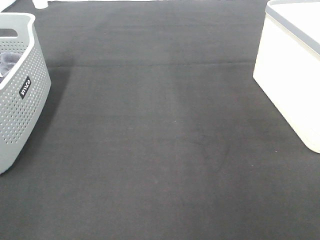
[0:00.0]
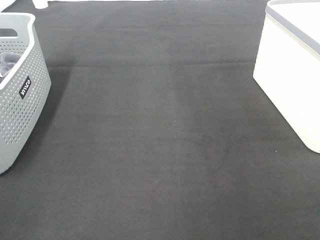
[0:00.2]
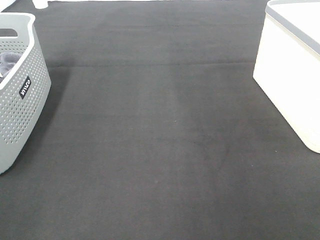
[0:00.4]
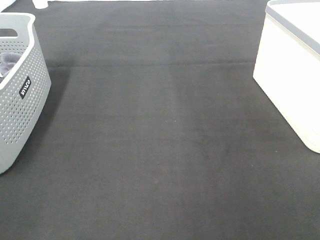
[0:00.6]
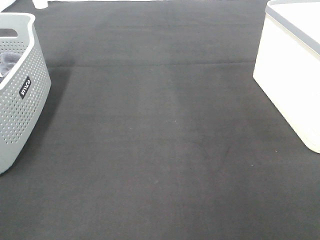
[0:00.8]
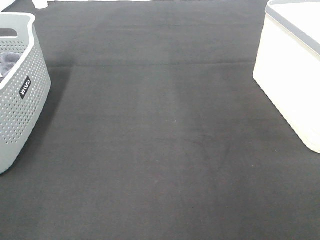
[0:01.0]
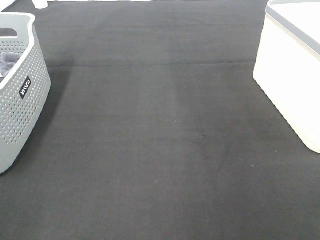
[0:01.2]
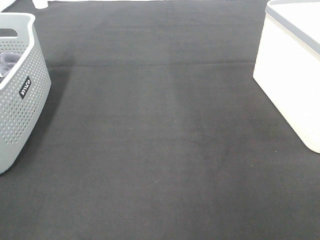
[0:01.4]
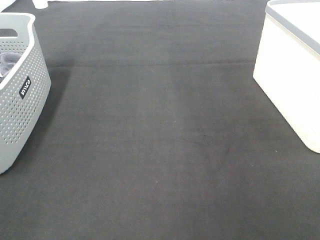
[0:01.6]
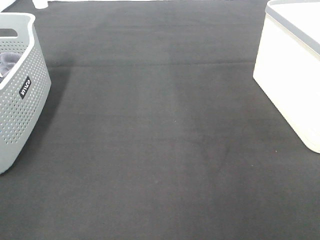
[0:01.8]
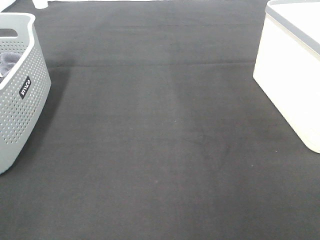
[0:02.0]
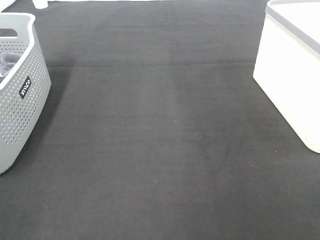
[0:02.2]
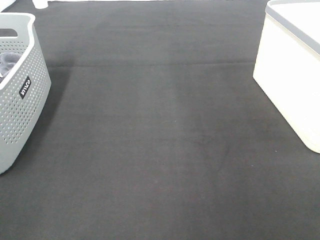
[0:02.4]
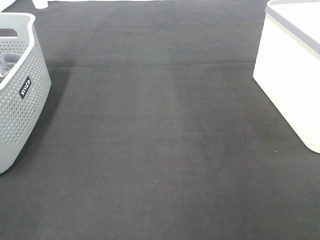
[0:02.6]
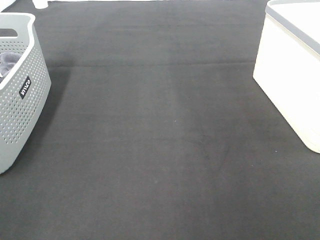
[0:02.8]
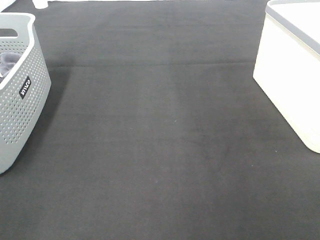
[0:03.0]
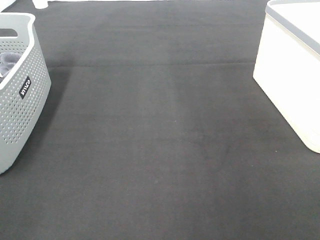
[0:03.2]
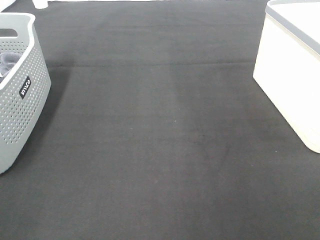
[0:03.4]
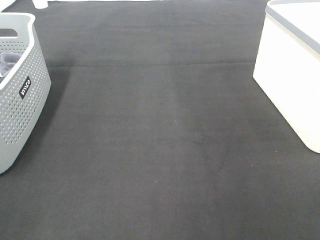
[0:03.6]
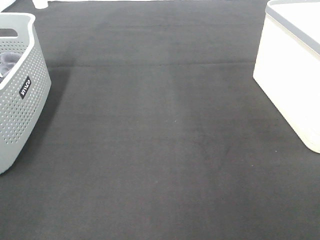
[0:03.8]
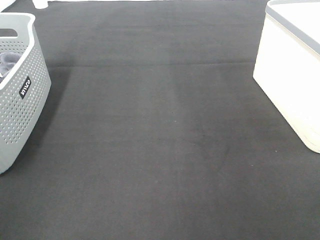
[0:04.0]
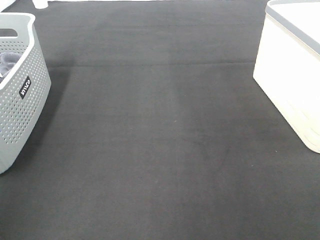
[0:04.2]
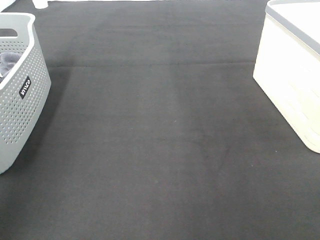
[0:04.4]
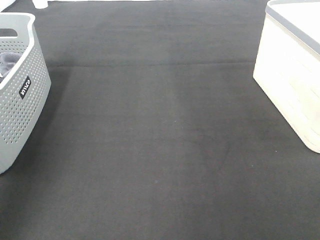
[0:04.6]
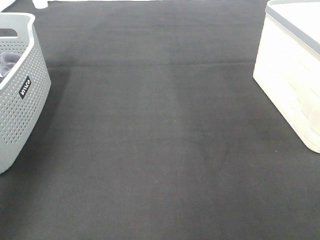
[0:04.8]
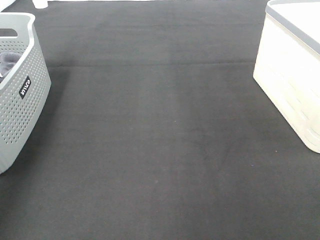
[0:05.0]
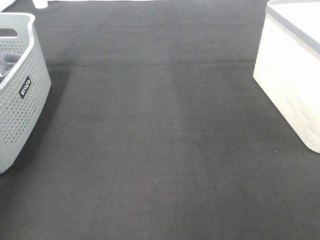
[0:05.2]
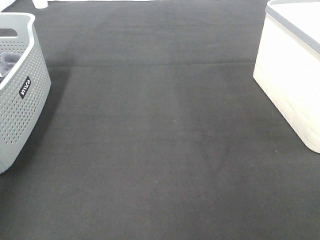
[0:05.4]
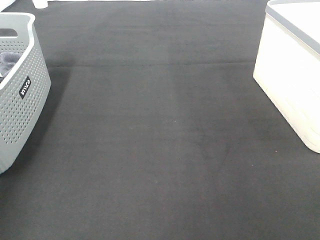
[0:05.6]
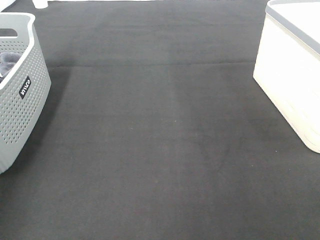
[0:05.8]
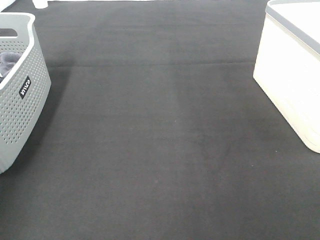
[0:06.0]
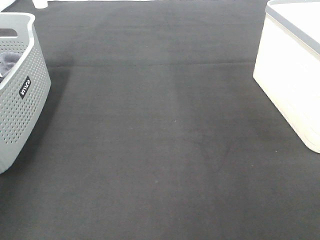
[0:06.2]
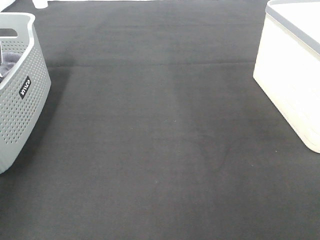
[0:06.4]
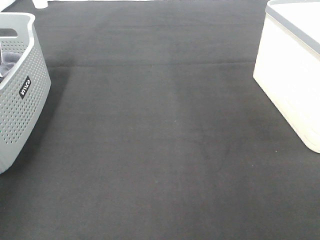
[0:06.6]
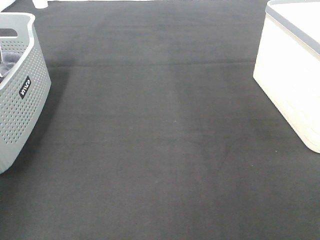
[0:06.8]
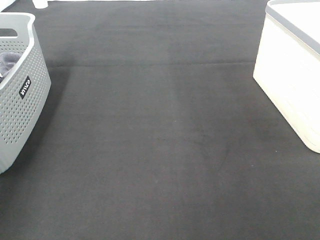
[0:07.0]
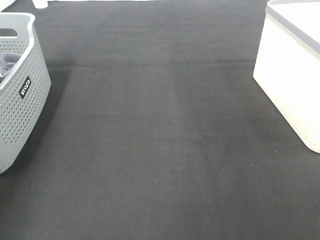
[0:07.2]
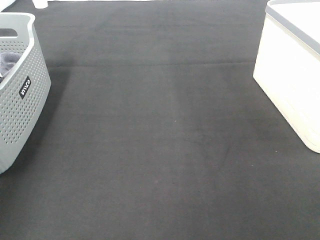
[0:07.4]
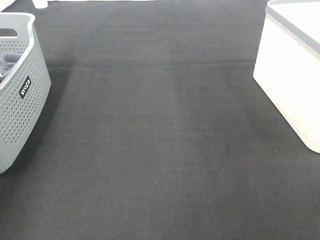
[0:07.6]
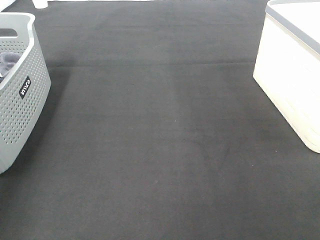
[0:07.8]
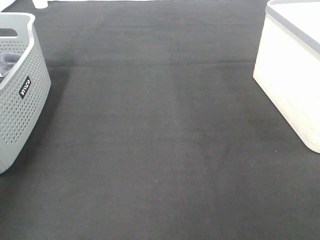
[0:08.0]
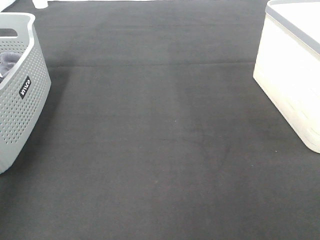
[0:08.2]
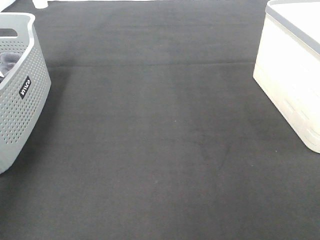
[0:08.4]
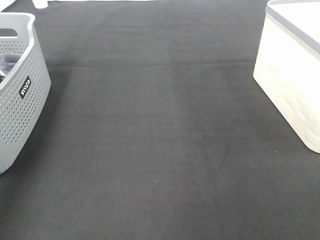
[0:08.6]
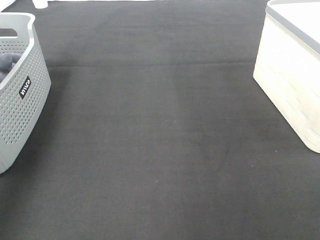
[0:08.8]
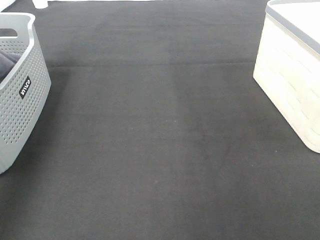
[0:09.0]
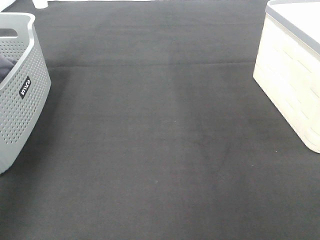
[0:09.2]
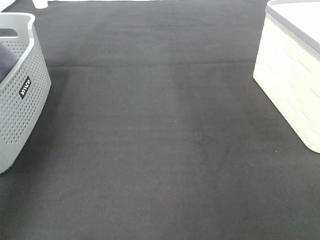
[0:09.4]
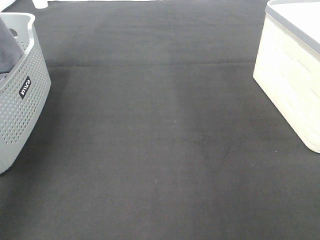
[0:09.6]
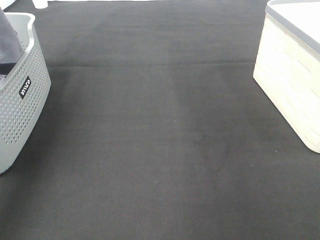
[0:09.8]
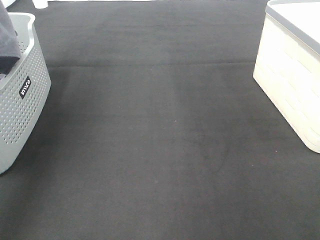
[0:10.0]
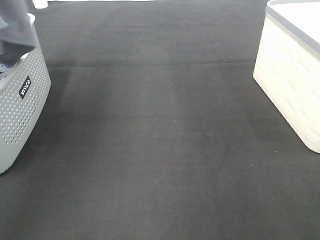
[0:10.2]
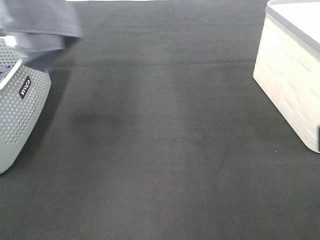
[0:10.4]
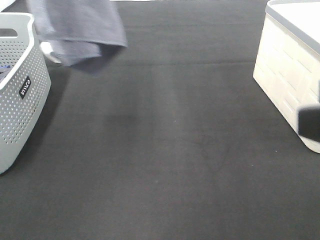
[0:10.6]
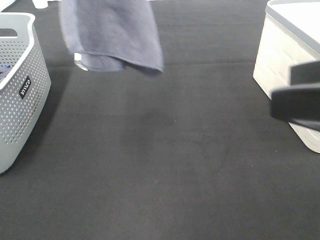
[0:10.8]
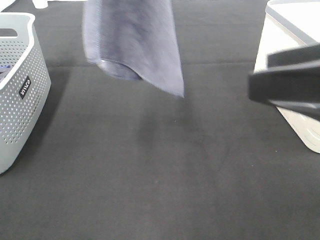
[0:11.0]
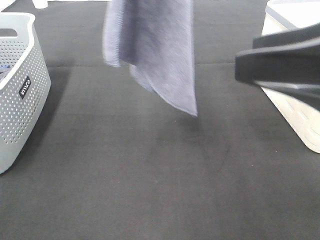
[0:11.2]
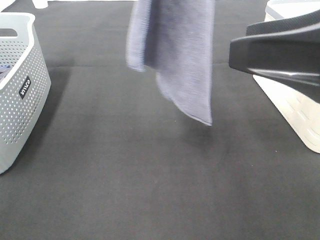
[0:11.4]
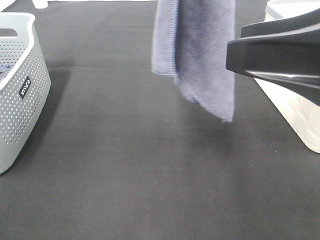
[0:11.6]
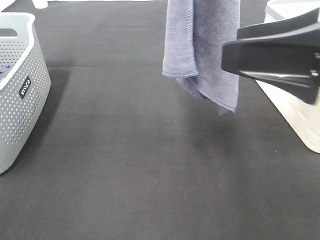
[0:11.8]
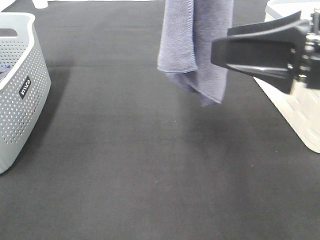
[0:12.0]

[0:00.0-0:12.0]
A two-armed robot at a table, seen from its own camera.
Task of the whole recording: Remove the towel and place it.
0:00.0 to 0:03.0: Neither gripper changes place.
0:03.0 to 0:04.4: The left gripper is displaced forward and upward by approximately 20 cm.
0:09.0 to 0:10.4: The left gripper heads upward and to the right, covering approximately 20 cm, while the right gripper shifts about 10 cm forward, upward and to the left.
0:10.4 to 0:12.0: The right gripper is displaced forward by about 10 cm; the left gripper travels to the right by roughly 20 cm.

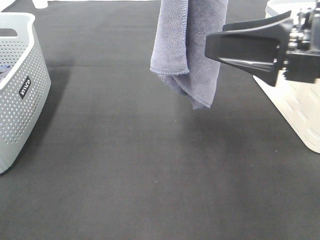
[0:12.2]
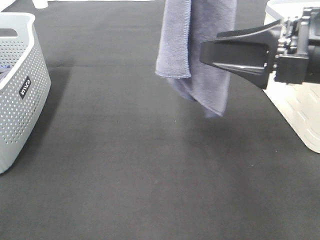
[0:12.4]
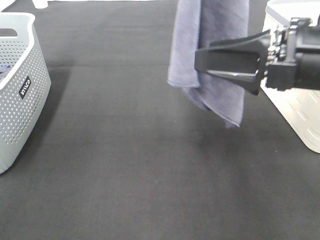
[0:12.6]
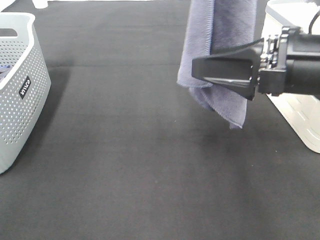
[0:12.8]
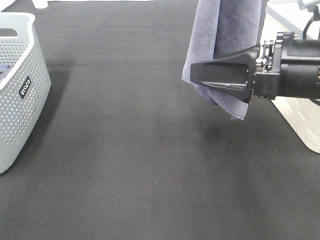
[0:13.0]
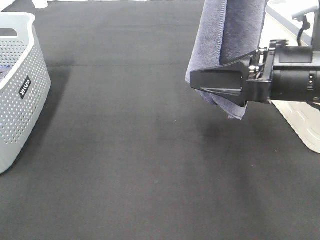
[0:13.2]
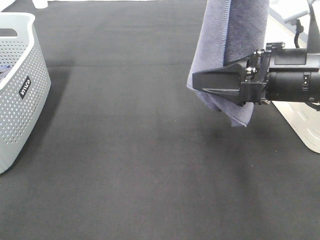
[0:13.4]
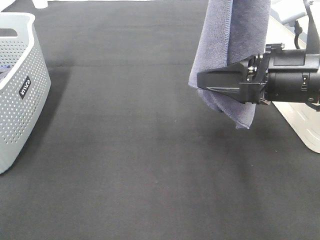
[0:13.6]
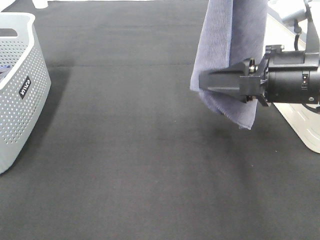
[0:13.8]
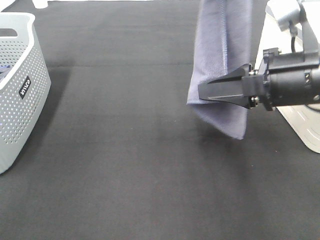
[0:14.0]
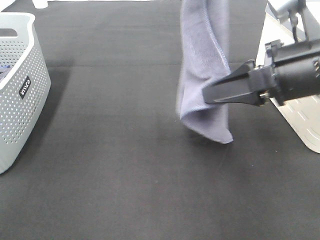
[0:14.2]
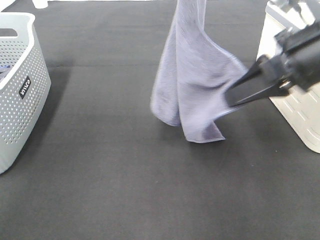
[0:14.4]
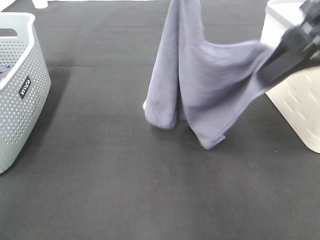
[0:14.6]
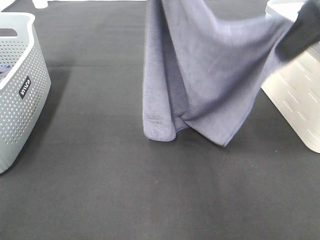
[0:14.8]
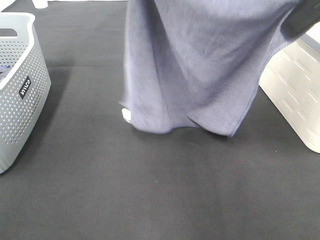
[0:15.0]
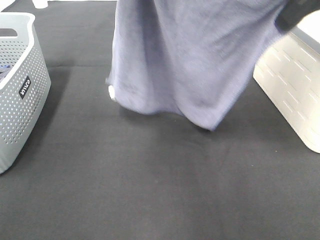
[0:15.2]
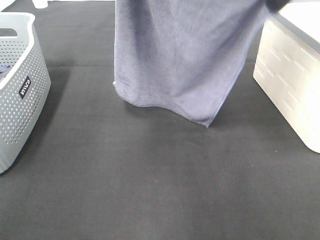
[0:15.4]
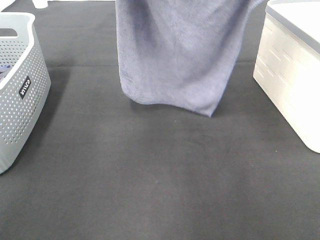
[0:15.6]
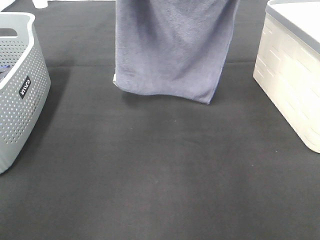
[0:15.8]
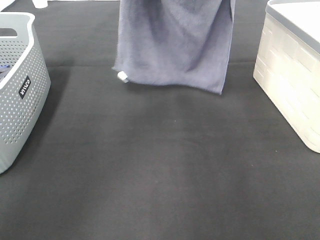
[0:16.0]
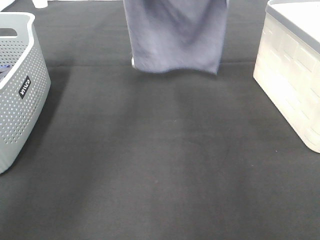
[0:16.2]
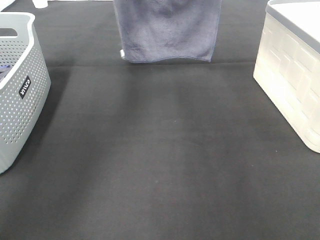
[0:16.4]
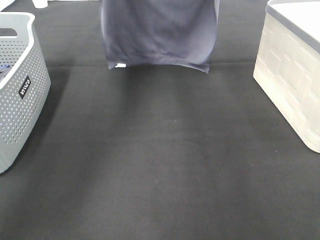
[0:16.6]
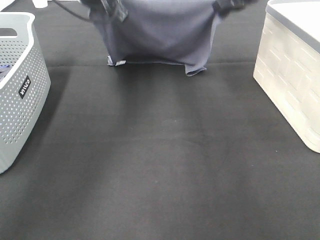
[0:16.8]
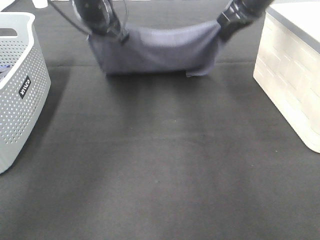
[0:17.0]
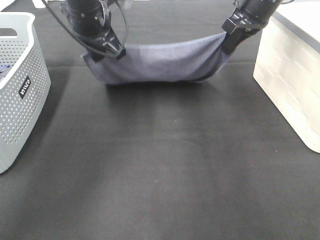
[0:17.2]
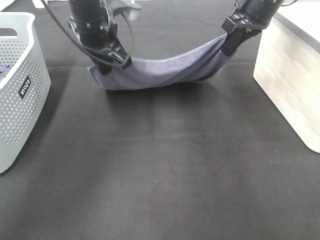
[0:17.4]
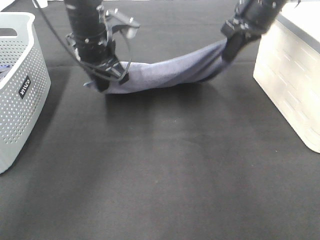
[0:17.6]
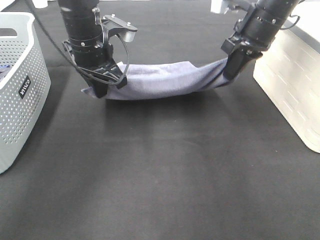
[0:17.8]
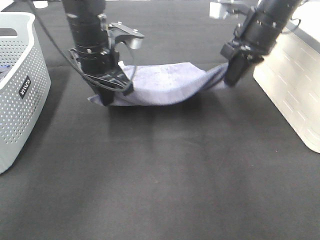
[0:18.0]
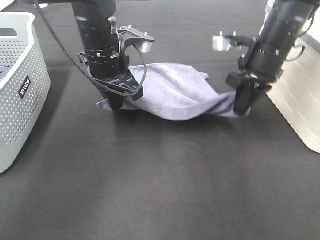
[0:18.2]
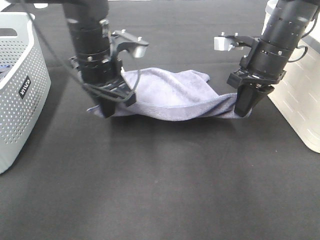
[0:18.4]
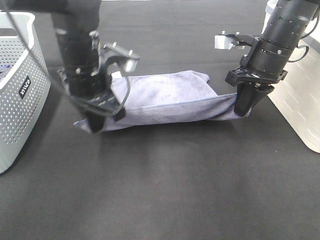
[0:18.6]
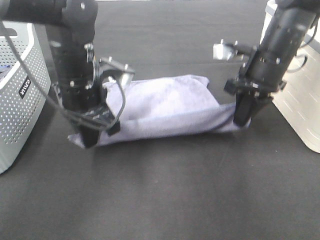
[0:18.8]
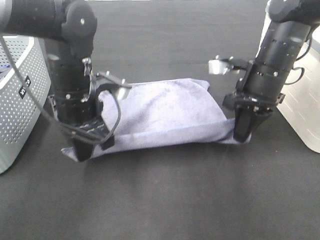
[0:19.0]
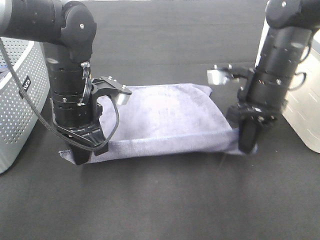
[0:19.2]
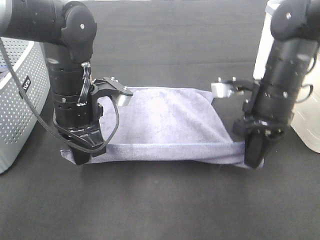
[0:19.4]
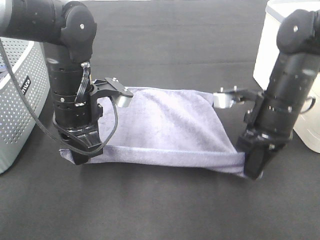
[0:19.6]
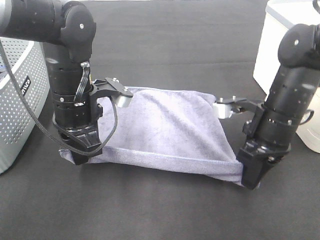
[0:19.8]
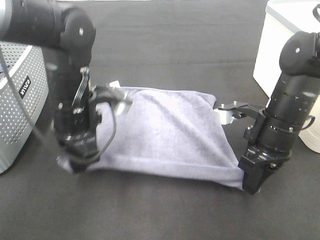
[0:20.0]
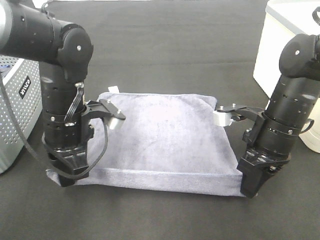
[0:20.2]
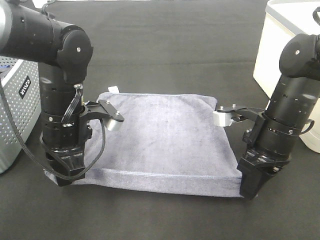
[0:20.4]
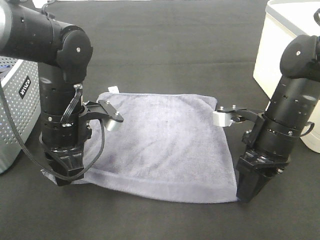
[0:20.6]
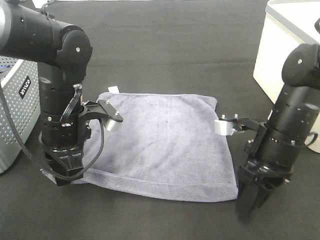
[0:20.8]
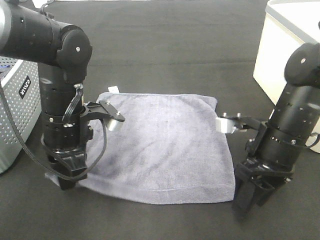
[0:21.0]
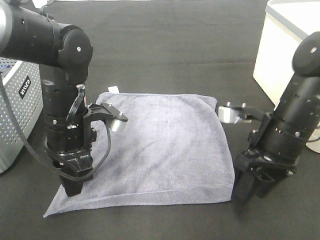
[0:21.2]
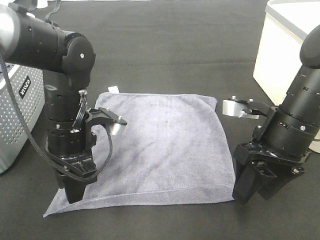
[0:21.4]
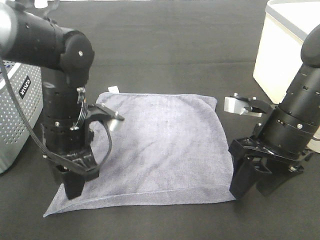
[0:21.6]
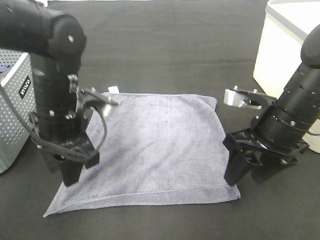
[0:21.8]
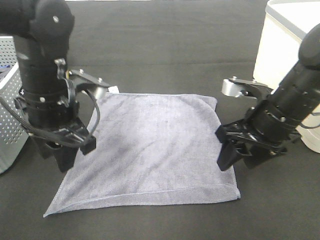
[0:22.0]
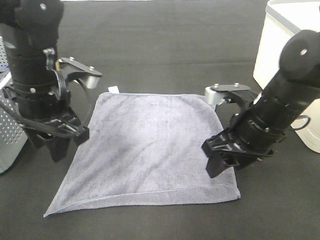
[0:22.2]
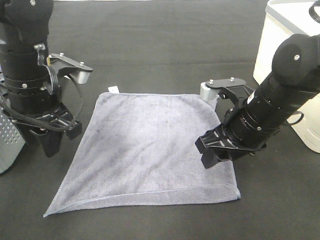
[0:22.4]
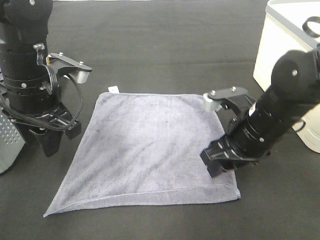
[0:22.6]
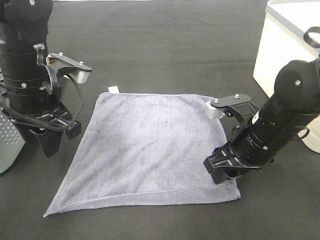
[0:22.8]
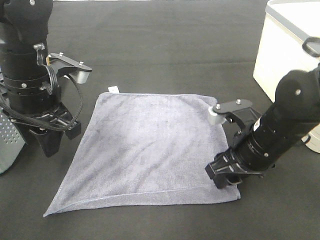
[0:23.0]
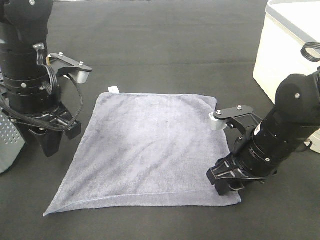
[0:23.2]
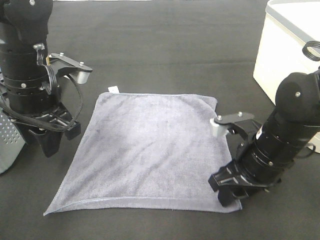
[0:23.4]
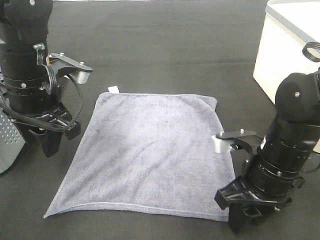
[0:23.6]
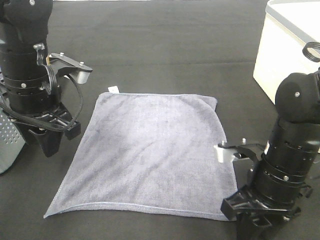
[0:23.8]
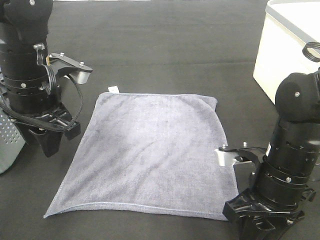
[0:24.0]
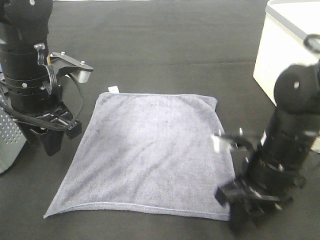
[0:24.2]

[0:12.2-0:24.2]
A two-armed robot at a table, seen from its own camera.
Task of the whole recording: Remove the towel and place it.
Step, 0:13.0 to 0:16.4: Right hand: spread the grey towel flat on the table.
Step, 0:13.0 to 0:17.0: Left hand: spread the grey towel flat on the table.
Step, 0:17.2 to 0:21.8: Right hand:adjust the gray towel.
0:12.2 to 0:13.8: The right gripper travels downward by roughly 5 cm, and closes its fingers, while the left gripper shifts by some 5 cm.
0:13.8 to 0:15.2: The right gripper travels upward and forward by approximately 15 cm. The left gripper is displaced to the left by about 5 cm.
0:15.2 to 0:16.6: The left gripper is displaced forward and downward by approximately 20 cm. The right gripper is displaced forward by approximately 20 cm.
0:16.6 to 0:18.2: The two grippers go approximately 15 cm downward and backward.
0:18.2 to 0:19.8: The right gripper moves backward and downward, some 10 cm. Meanwhile the left gripper shifts some 5 cm backward.
0:19.8 to 0:21.2: The right gripper opens up.
0:21.2 to 0:22.6: The left gripper goes approximately 5 cm upward.
